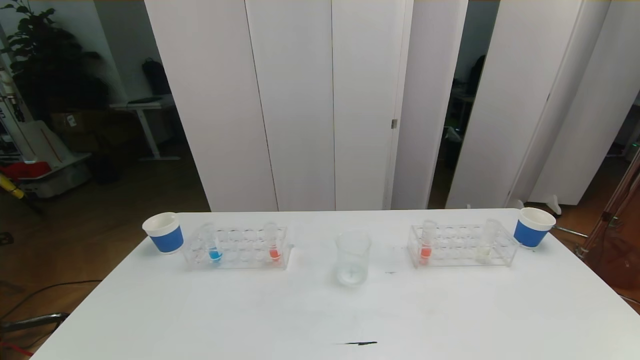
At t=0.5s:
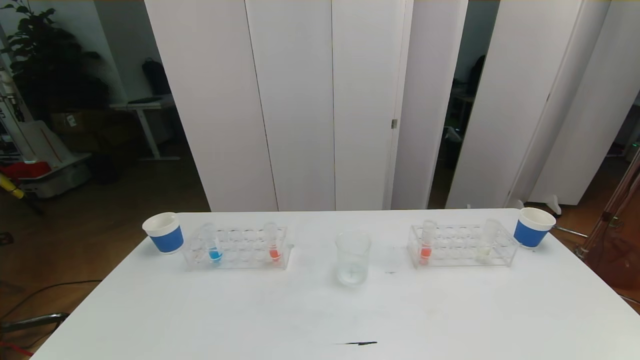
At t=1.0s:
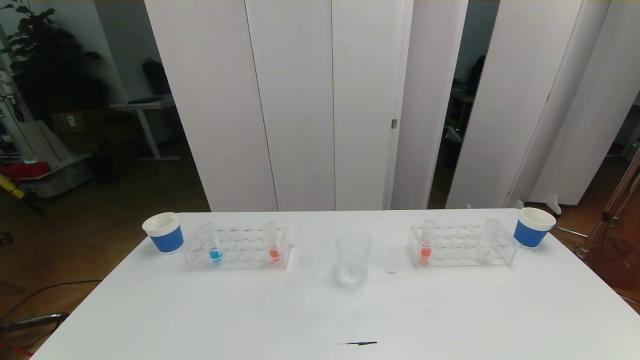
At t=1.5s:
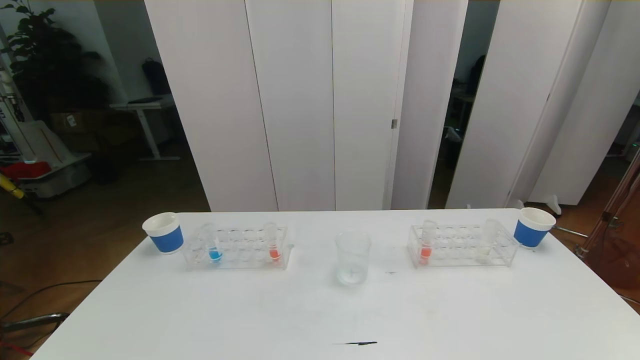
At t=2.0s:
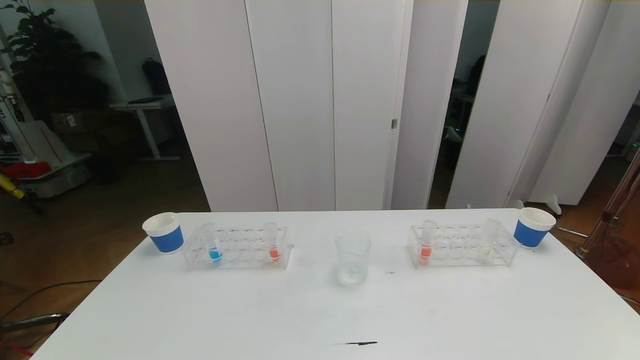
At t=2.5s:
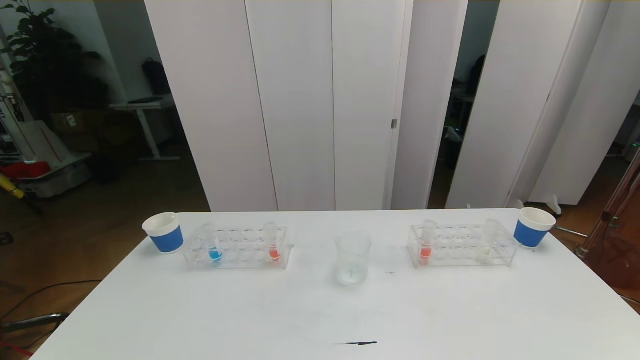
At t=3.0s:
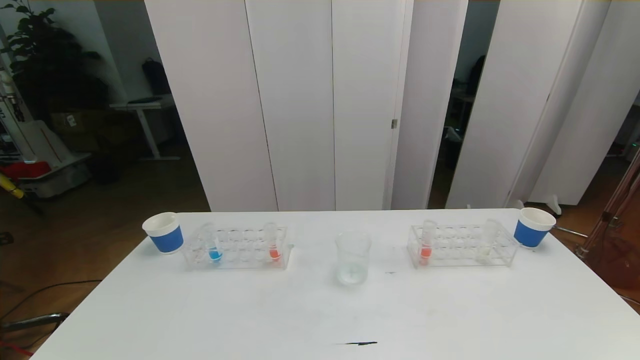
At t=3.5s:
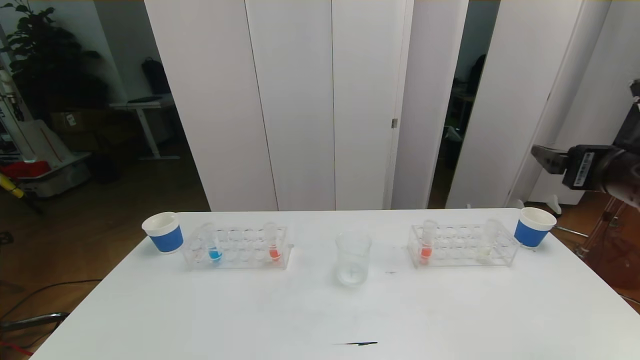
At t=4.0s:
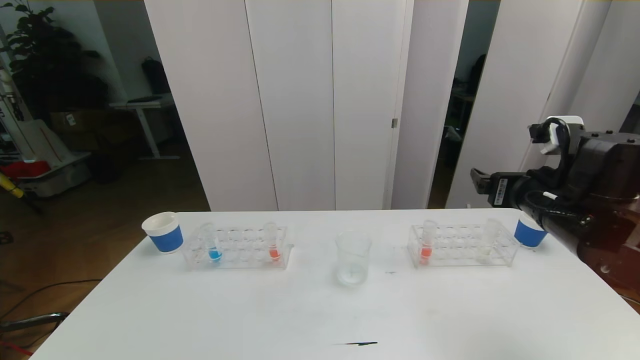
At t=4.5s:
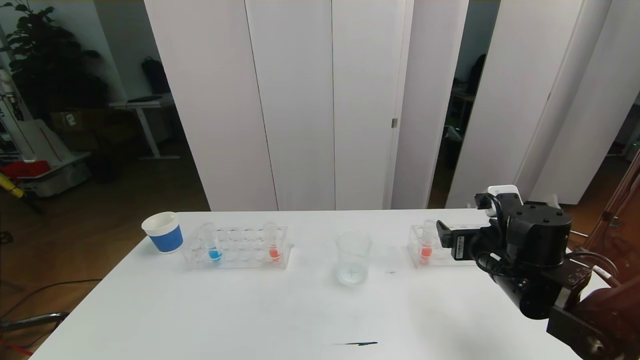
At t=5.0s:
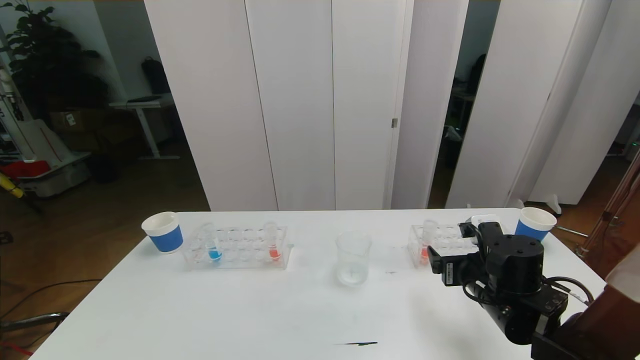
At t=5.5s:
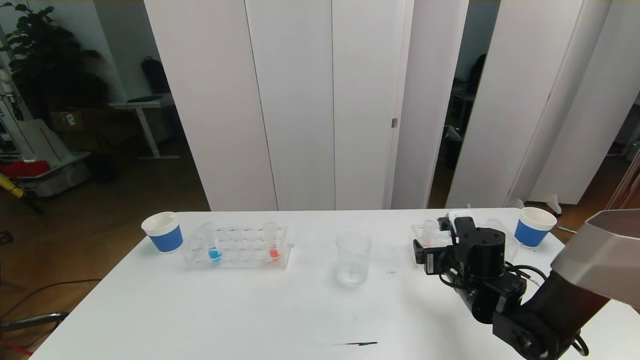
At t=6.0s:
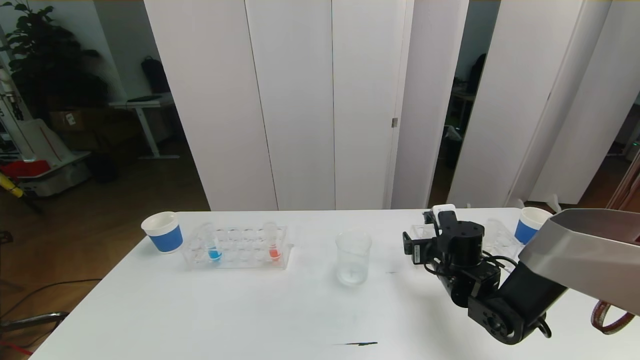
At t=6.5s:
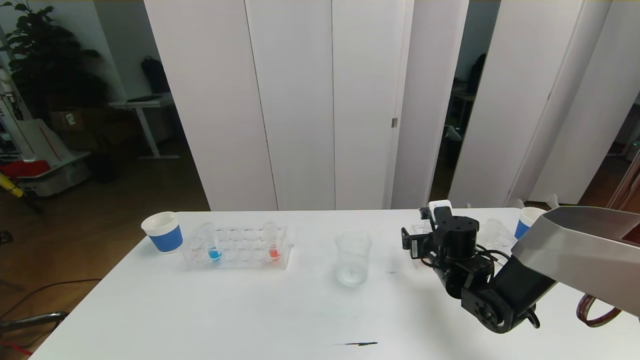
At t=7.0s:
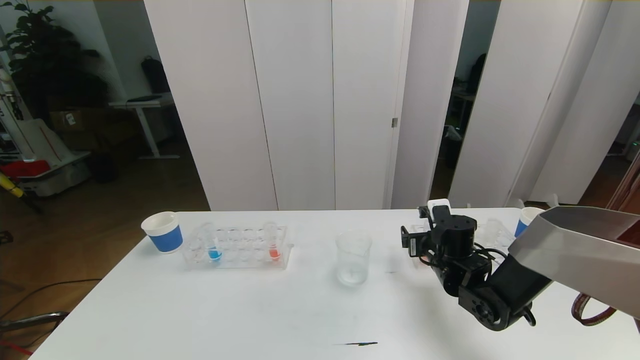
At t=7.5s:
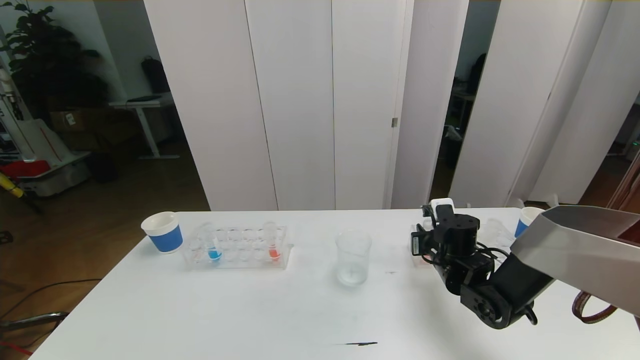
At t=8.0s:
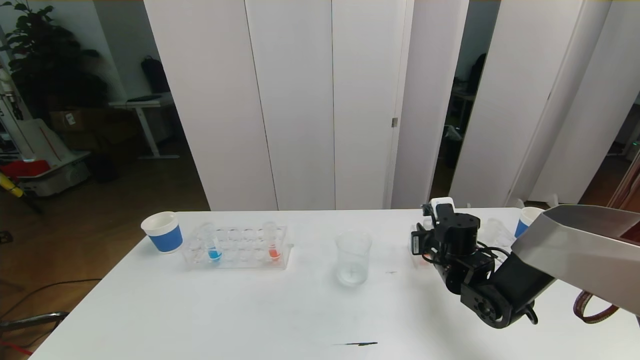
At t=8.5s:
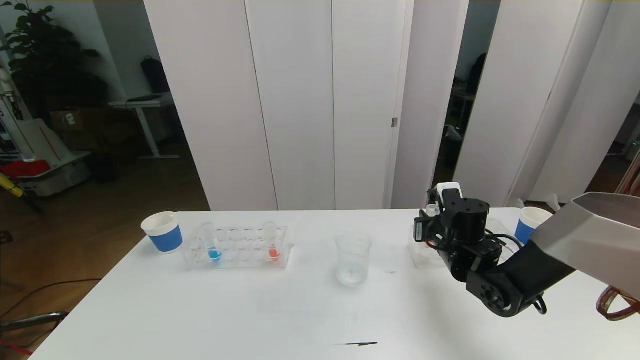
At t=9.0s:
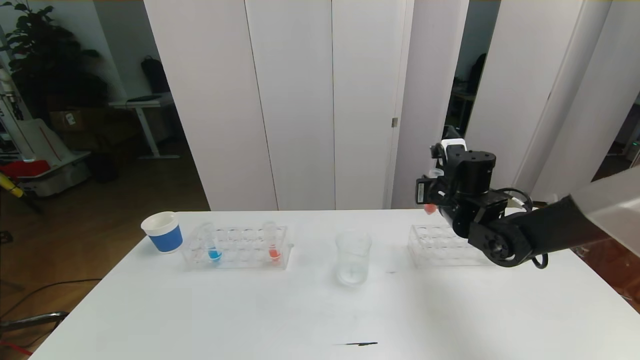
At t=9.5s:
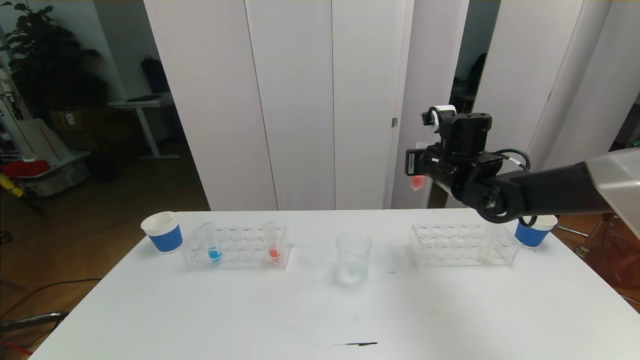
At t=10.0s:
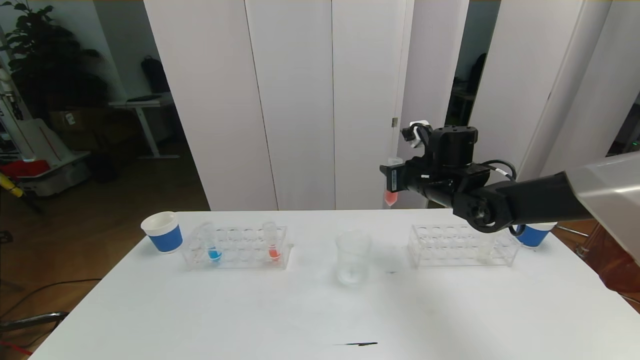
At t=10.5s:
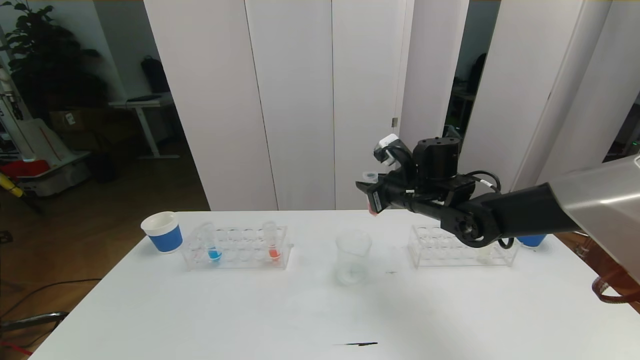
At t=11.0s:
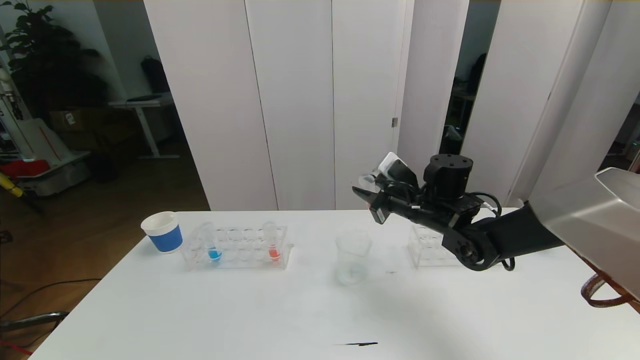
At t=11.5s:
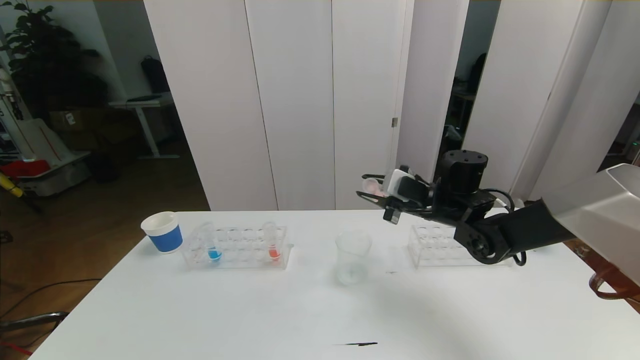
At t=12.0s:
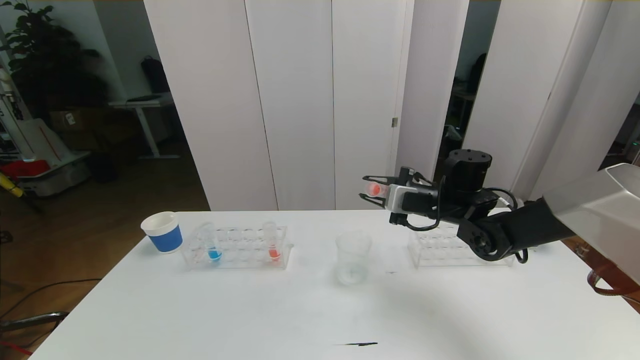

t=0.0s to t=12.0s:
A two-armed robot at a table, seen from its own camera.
Task of the whole recording: pick up the test tube with red pigment the test tube with blue pigment and the test tube with white pigment by grippers and pour them into the beaker.
t=0.0s to t=2.0s: The two grippers keep their place.
t=2.0s to t=4.0s: The right gripper heads forward, covering some 30 cm.
t=4.0s to t=6.0s: The right gripper heads downward, covering some 15 cm.
t=6.0s to t=8.0s: The right gripper closes its fingers.
t=8.0s to t=10.0s: The right gripper moves upward, roughly 15 cm.

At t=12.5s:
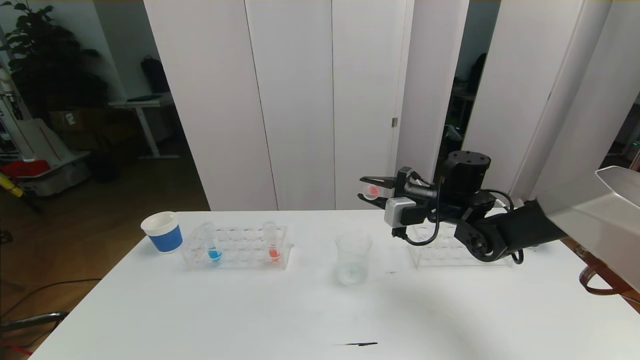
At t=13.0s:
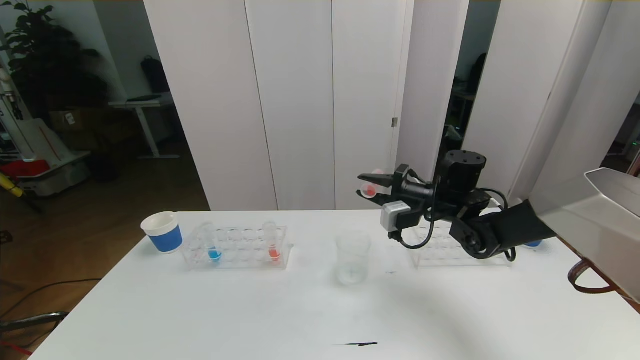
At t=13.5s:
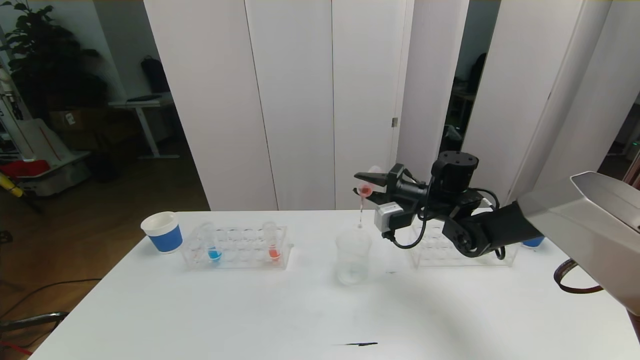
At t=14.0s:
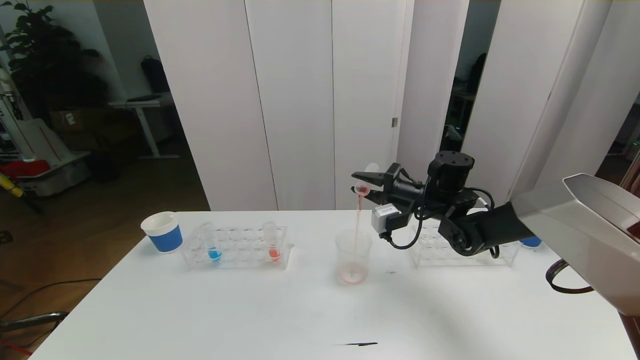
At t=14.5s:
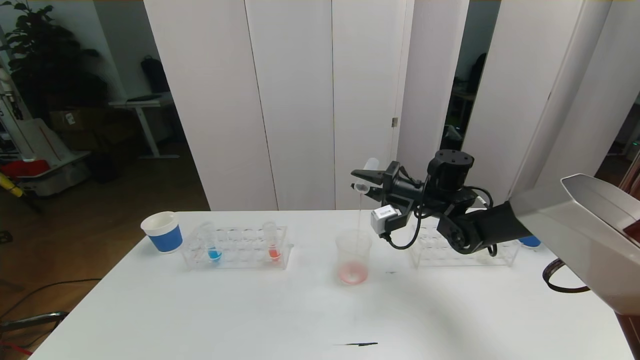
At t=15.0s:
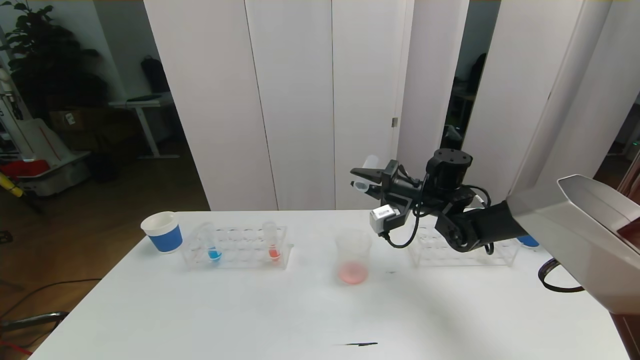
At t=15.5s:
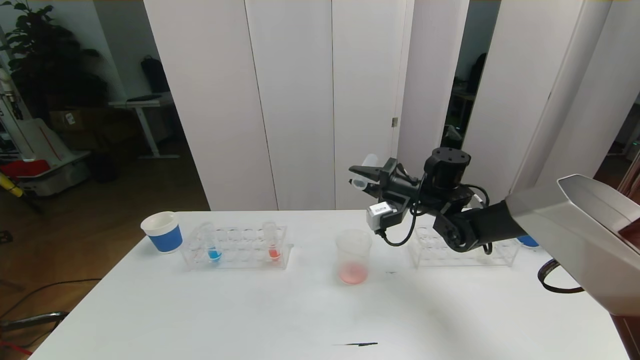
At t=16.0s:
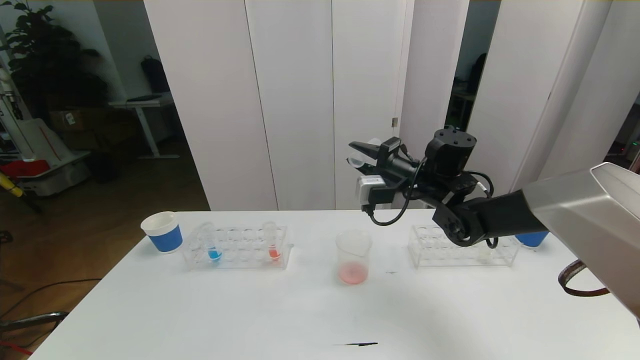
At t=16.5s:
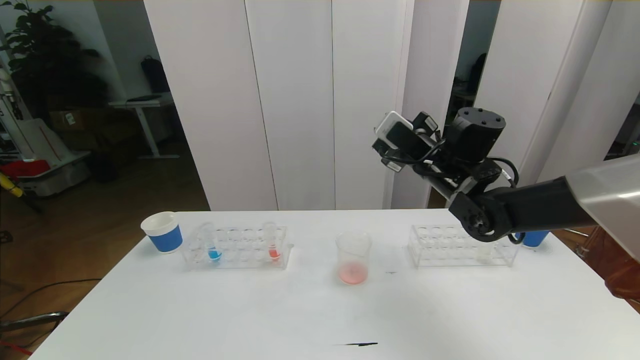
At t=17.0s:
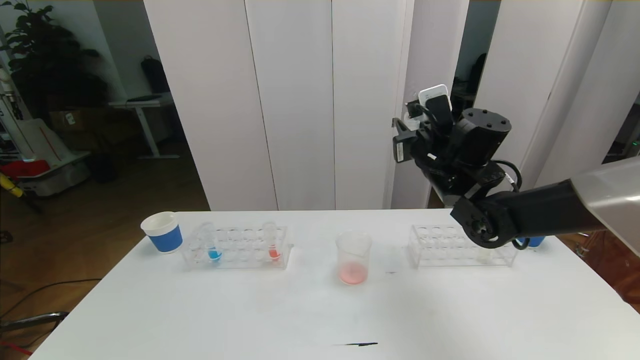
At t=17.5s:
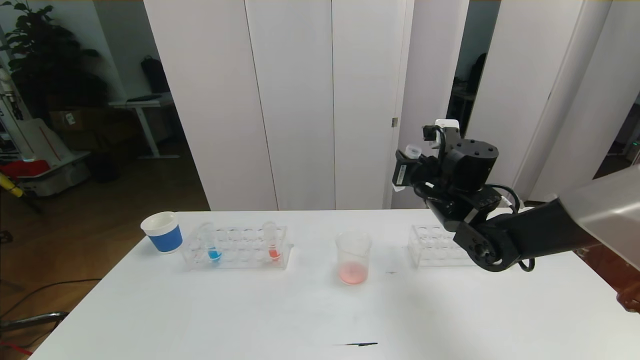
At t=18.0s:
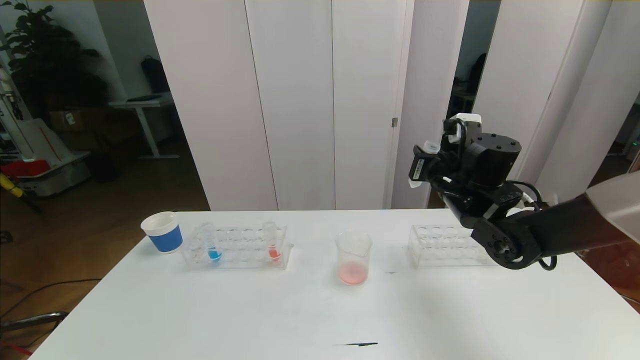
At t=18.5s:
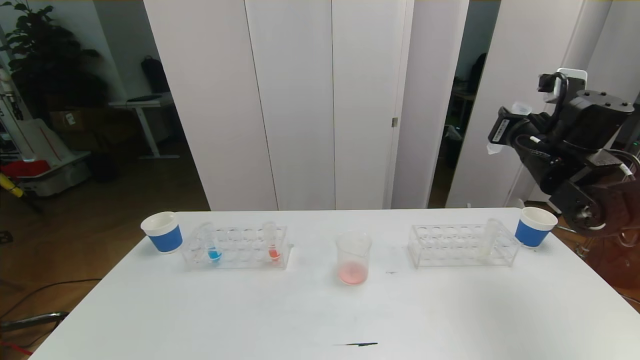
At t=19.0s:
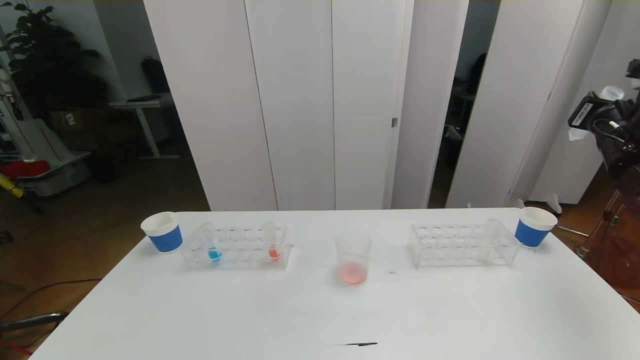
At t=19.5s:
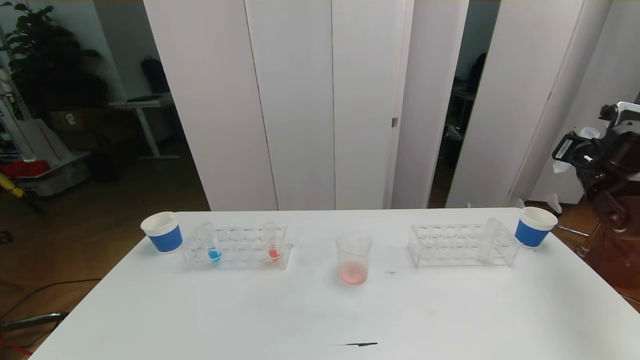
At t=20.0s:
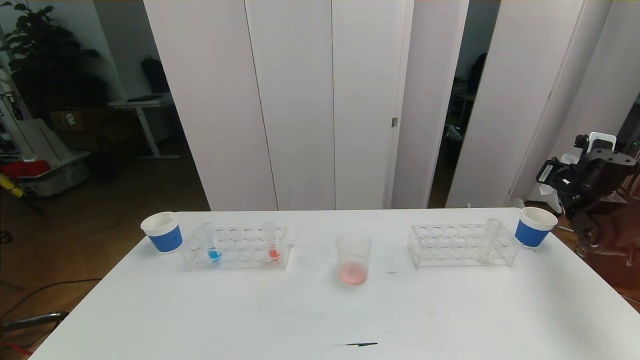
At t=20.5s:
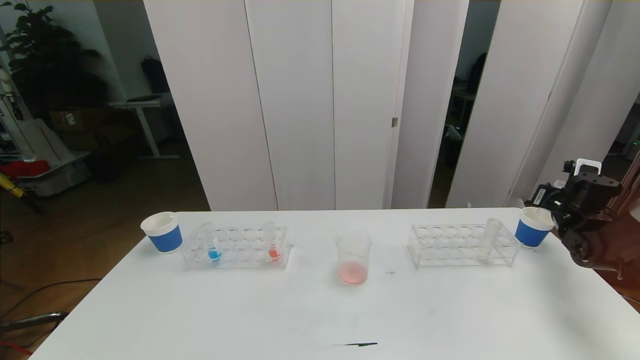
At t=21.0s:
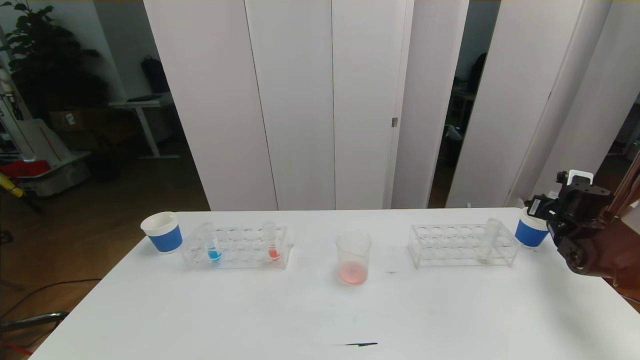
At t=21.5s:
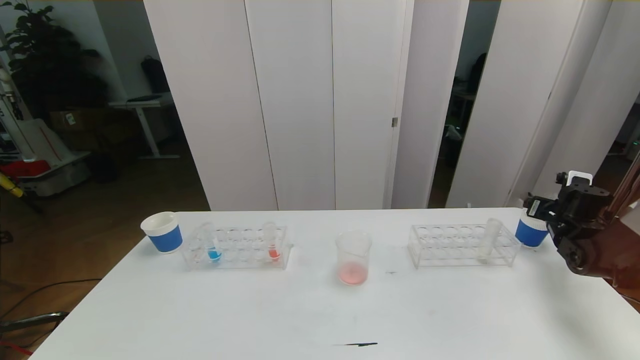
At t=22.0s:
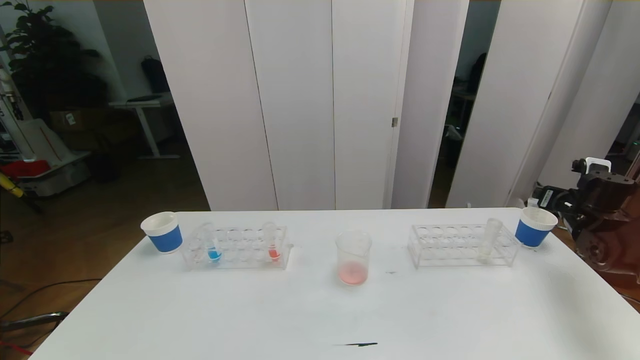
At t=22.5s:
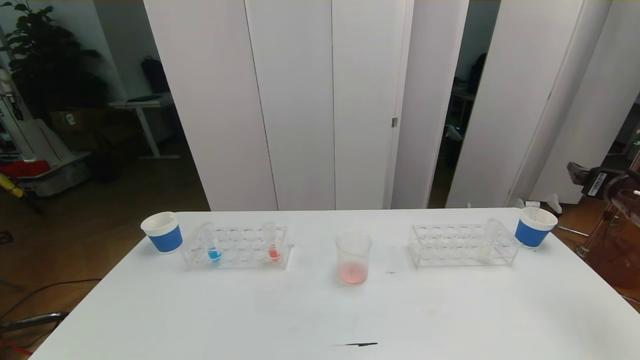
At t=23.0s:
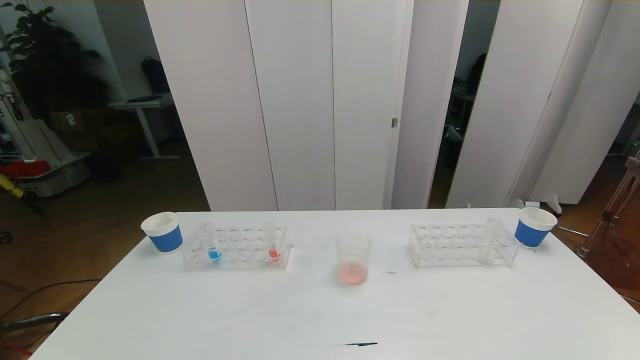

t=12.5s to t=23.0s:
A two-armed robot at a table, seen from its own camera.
Task of the whole recording: pick up the test tube with red pigment the test tube with blue pigment and the test tube with white pigment by grippers and pour them into the beaker.
t=14.5s to t=16.5s: The right gripper moves upward, some 10 cm.
t=16.5s to t=19.0s: The right gripper moves to the right, roughly 25 cm.
t=19.0s to t=21.0s: The right gripper is displaced downward by some 20 cm.
t=21.0s to t=23.0s: The right gripper travels backward and upward by about 30 cm, and opens.
